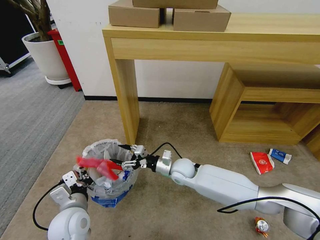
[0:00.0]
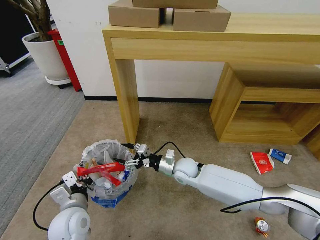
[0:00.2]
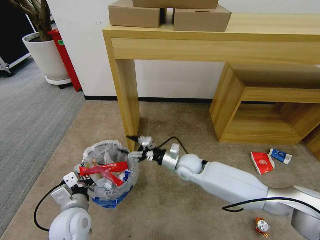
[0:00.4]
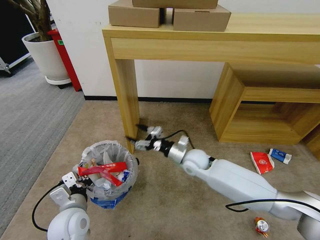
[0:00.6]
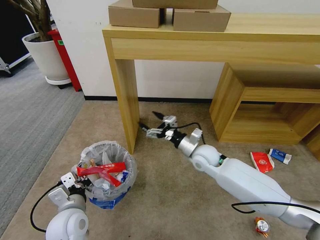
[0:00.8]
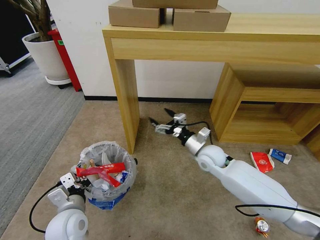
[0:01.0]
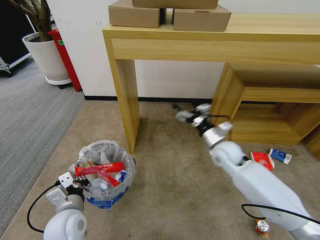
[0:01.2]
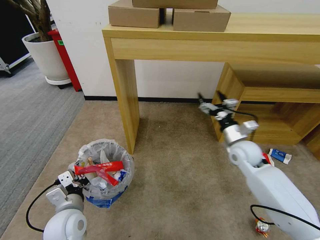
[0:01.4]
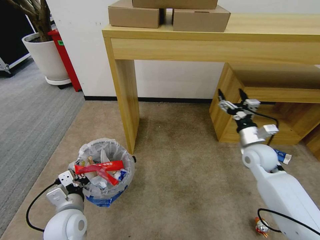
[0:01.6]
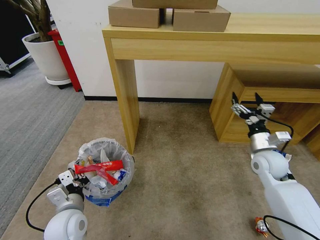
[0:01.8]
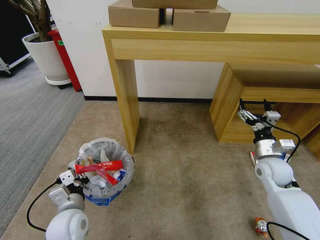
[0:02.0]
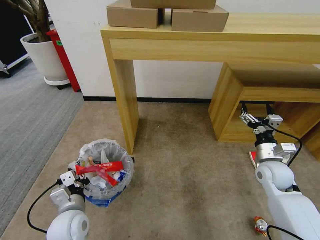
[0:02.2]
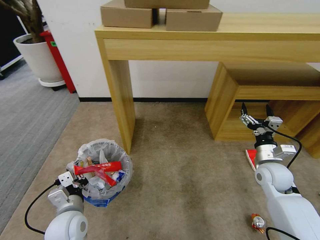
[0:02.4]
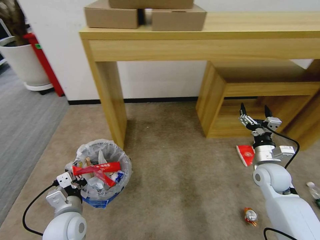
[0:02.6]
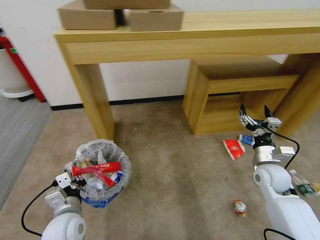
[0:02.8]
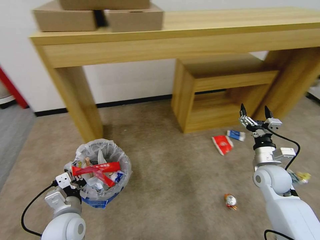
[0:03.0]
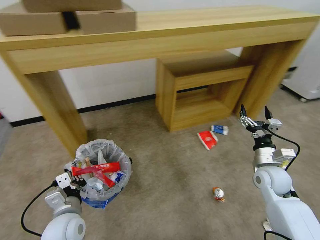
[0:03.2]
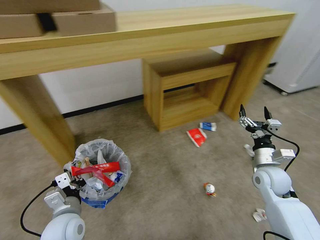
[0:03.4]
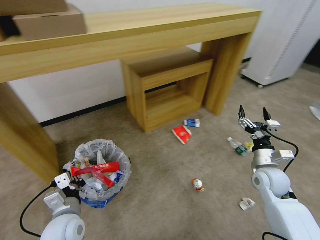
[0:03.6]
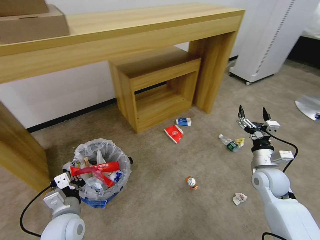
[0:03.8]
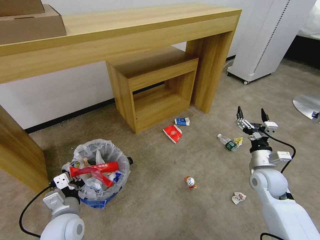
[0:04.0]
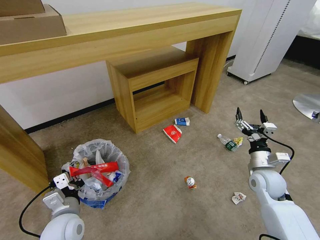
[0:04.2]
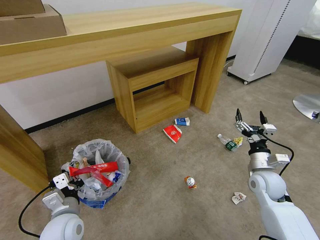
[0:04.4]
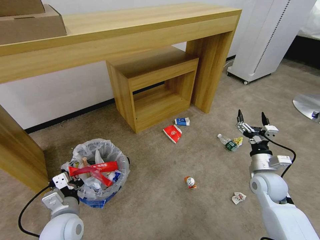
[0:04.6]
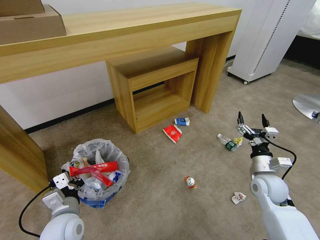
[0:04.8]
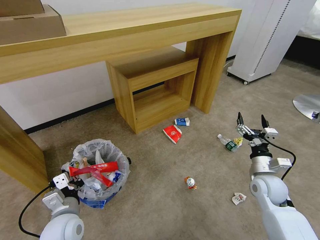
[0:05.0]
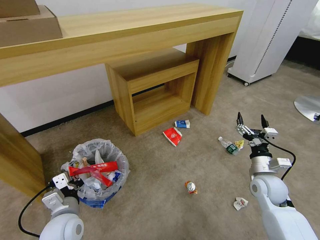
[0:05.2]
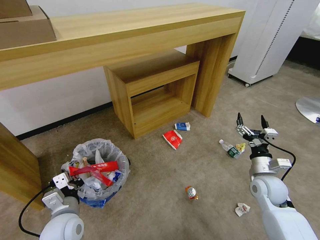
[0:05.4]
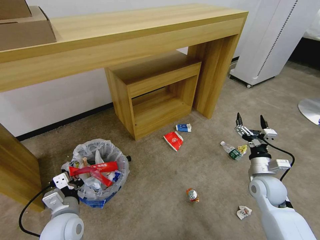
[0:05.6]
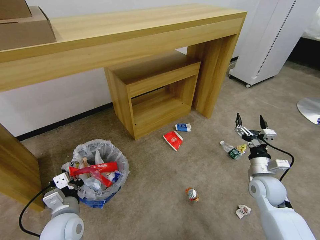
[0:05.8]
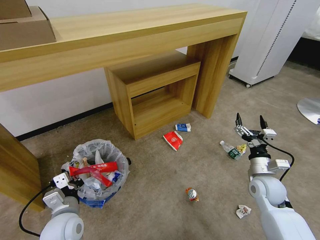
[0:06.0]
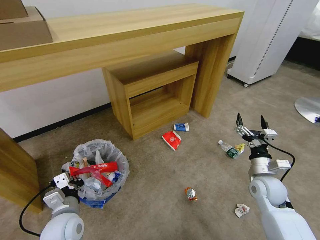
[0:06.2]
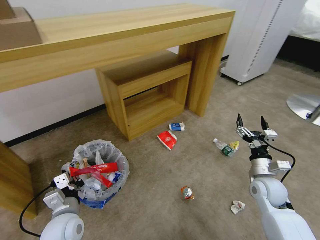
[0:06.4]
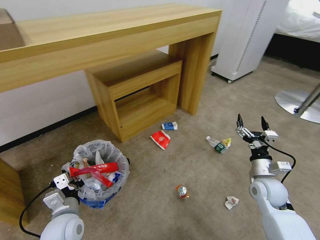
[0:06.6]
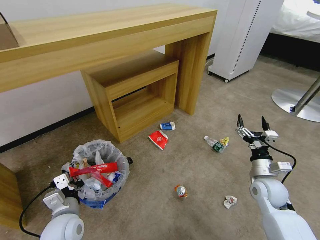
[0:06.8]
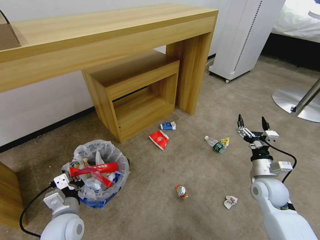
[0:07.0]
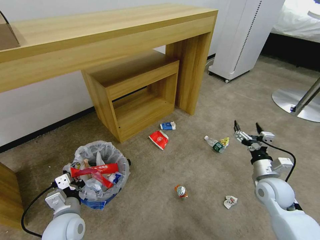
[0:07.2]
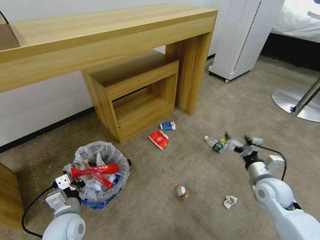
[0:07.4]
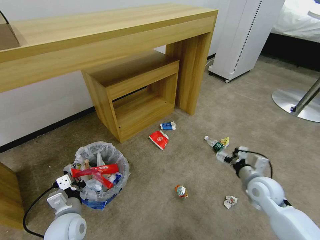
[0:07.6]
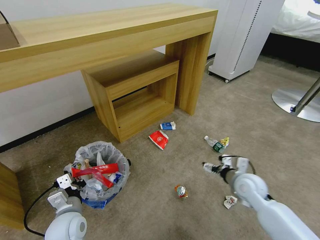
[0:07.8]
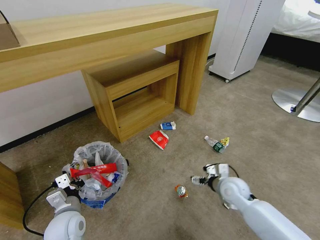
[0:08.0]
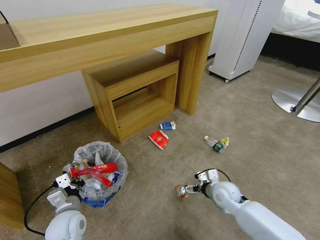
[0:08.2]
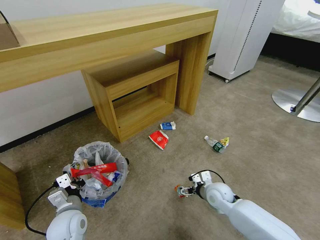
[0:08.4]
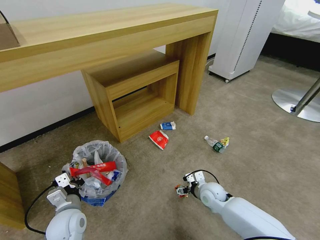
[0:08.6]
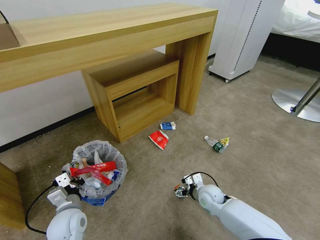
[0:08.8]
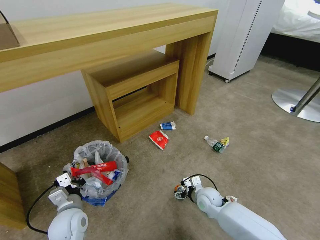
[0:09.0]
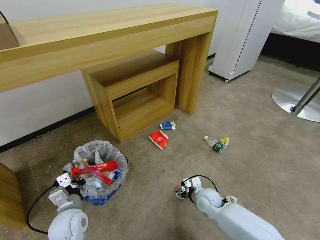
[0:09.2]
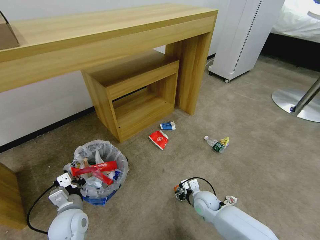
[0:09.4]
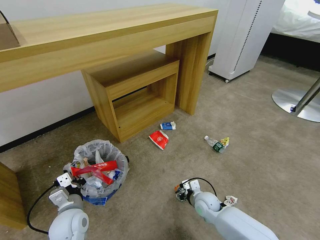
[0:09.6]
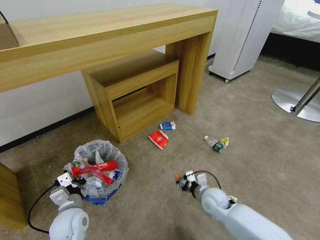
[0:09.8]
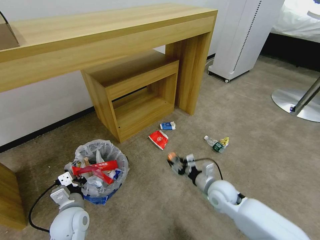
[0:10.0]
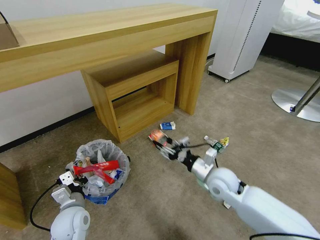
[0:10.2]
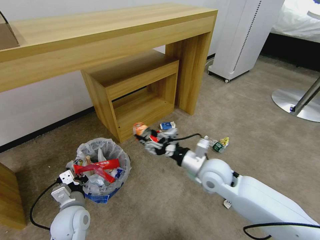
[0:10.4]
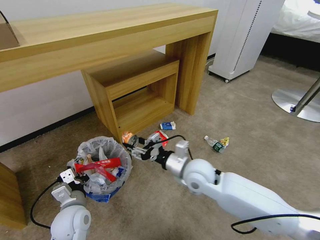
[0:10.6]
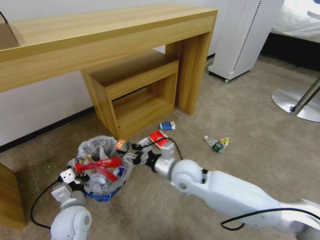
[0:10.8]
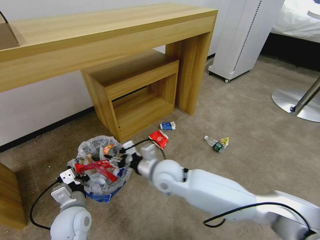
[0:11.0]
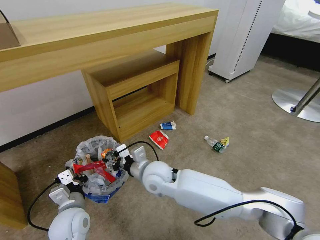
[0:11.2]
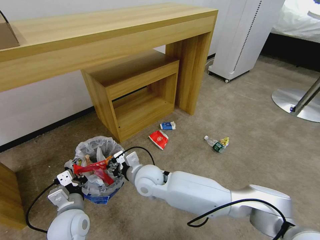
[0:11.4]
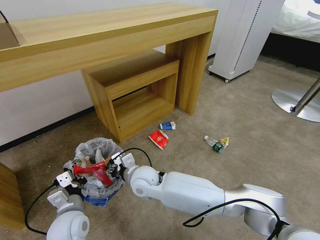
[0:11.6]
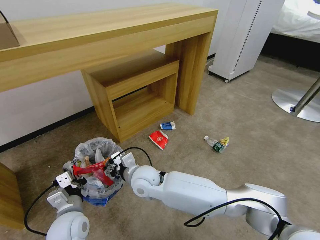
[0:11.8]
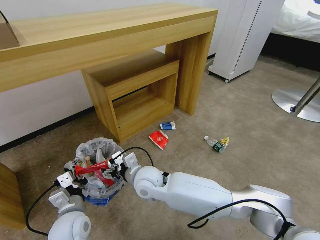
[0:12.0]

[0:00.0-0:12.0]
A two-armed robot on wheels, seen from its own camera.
Task of the whole recording: Pick up the trash bin and place the garbage on the floor into it.
0:00.0 to 0:01.6: The right gripper goes roughly 25 cm to the right and upward.
0:01.6 to 0:03.0: The right gripper is displaced backward by approximately 5 cm.
0:04.4 to 0:06.0: The grippers make only small movements.
0:07.6 to 0:09.0: The right gripper travels to the left and downward by approximately 20 cm.
0:09.0 to 0:10.4: The right gripper moves upward, roughly 20 cm, and closes up.
0:10.4 to 0:12.0: The right gripper moves to the left, roughly 20 cm.

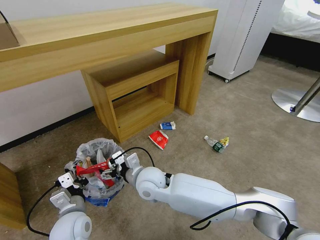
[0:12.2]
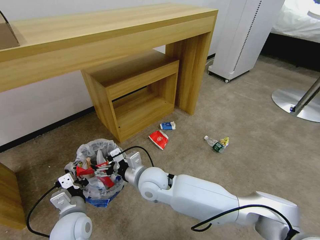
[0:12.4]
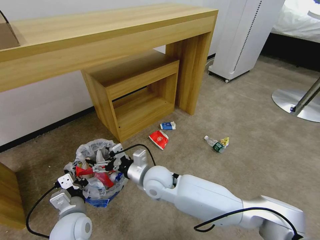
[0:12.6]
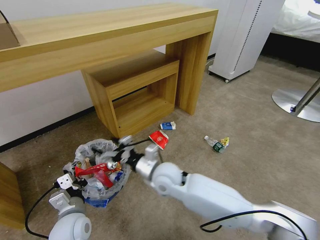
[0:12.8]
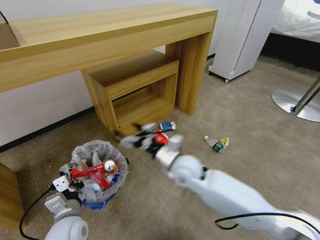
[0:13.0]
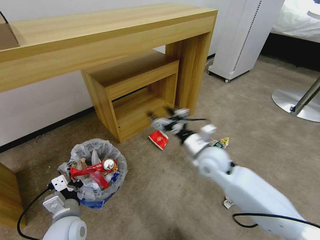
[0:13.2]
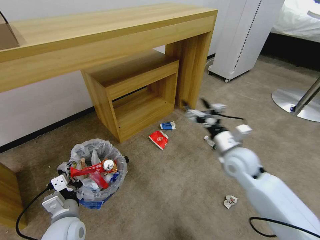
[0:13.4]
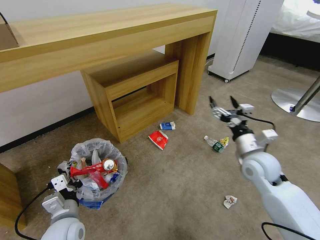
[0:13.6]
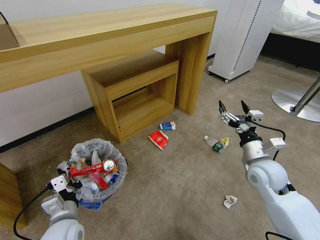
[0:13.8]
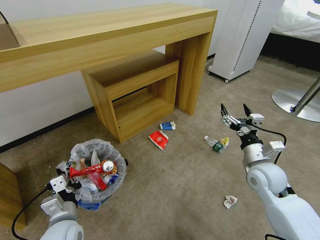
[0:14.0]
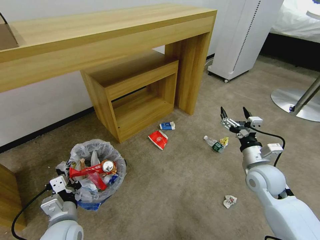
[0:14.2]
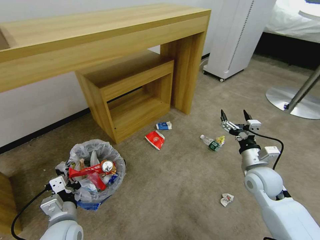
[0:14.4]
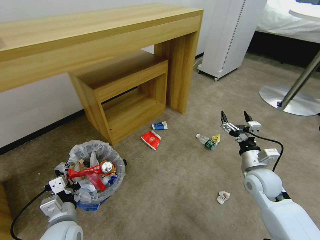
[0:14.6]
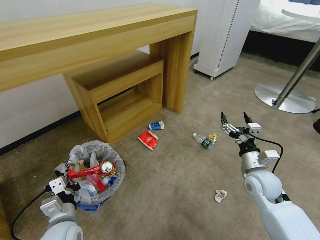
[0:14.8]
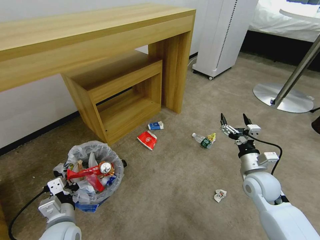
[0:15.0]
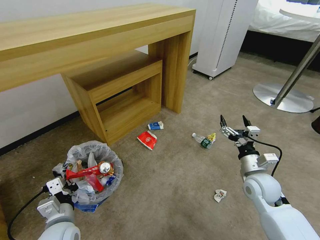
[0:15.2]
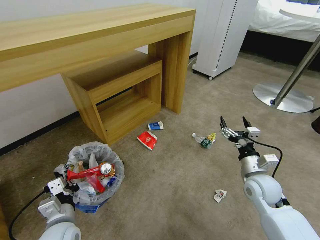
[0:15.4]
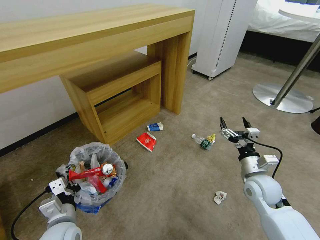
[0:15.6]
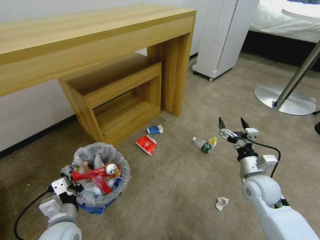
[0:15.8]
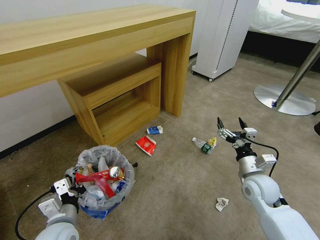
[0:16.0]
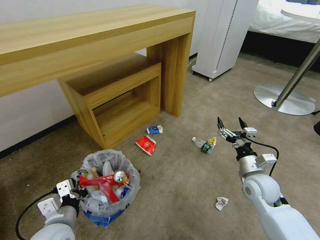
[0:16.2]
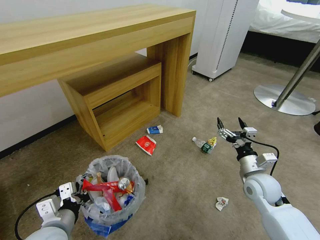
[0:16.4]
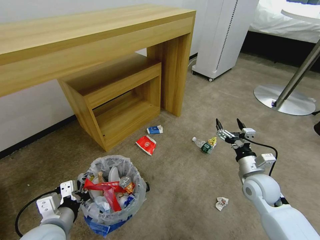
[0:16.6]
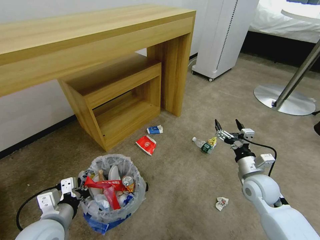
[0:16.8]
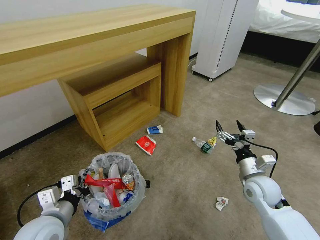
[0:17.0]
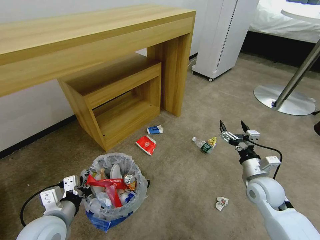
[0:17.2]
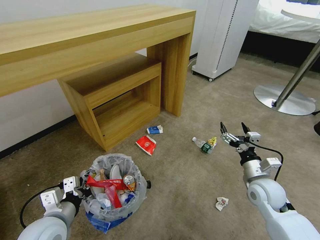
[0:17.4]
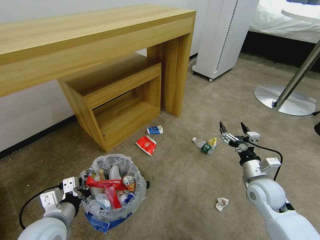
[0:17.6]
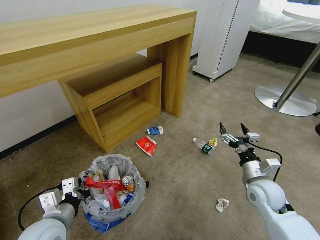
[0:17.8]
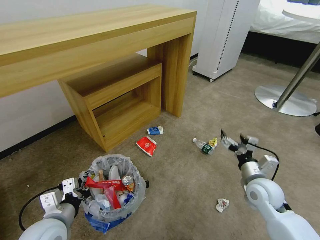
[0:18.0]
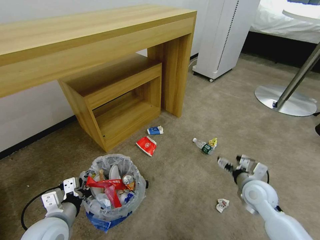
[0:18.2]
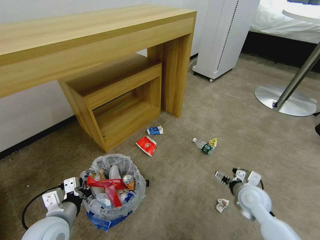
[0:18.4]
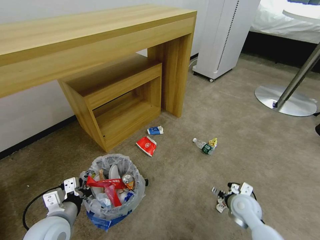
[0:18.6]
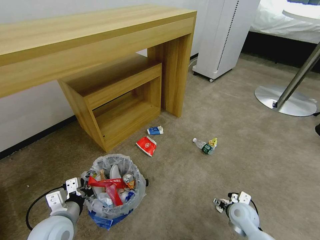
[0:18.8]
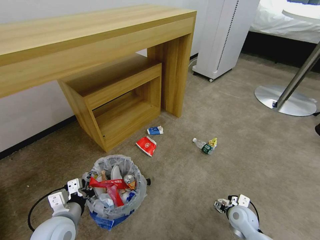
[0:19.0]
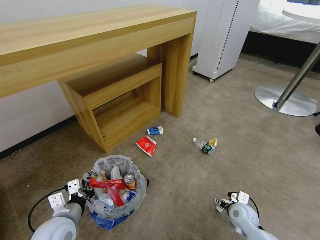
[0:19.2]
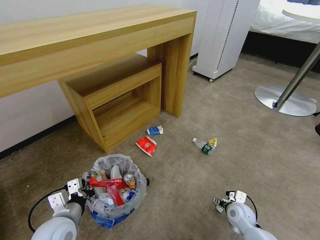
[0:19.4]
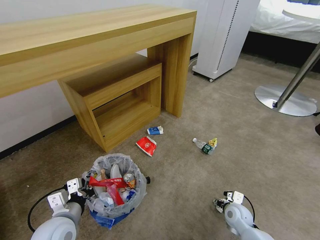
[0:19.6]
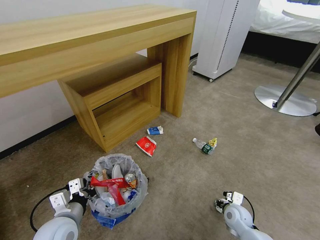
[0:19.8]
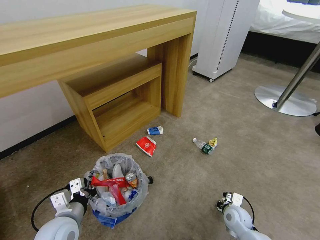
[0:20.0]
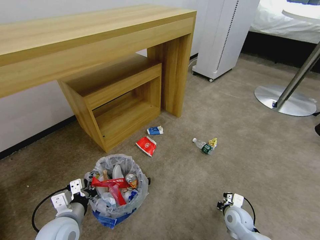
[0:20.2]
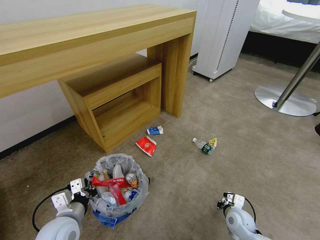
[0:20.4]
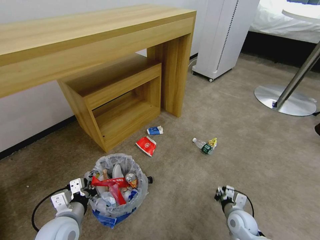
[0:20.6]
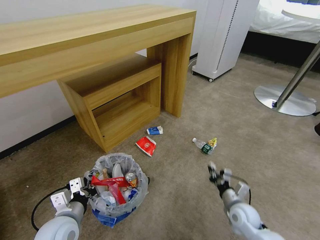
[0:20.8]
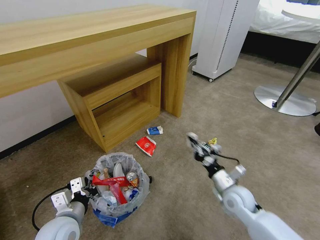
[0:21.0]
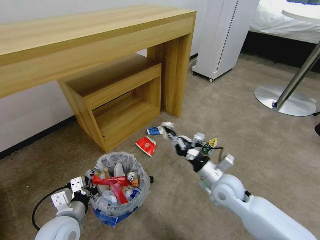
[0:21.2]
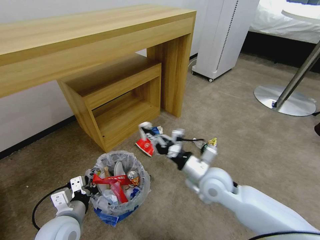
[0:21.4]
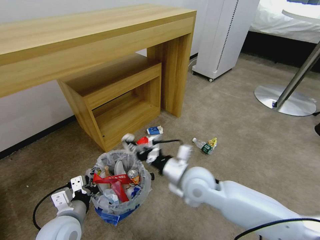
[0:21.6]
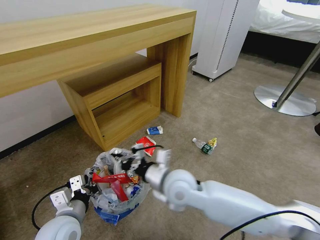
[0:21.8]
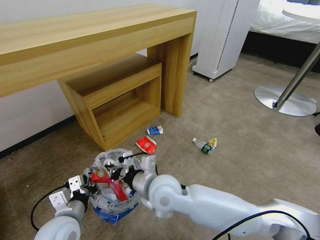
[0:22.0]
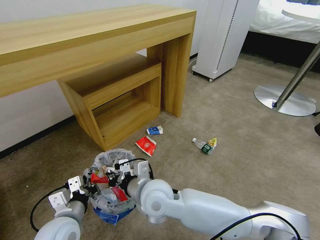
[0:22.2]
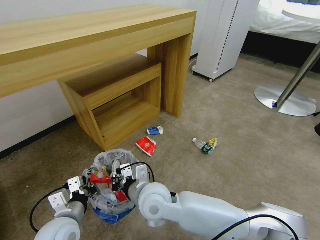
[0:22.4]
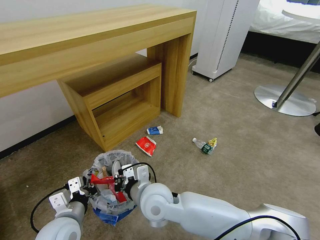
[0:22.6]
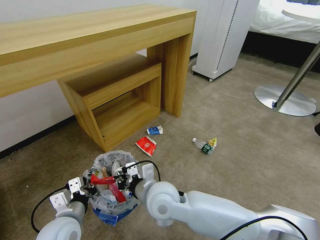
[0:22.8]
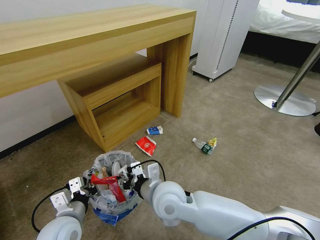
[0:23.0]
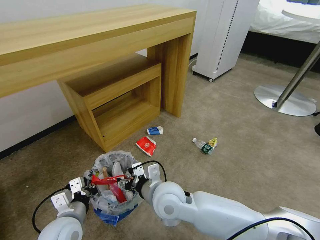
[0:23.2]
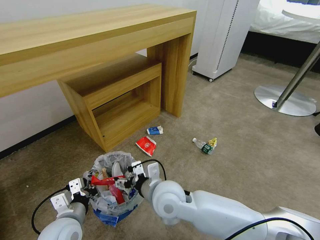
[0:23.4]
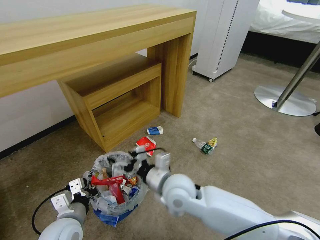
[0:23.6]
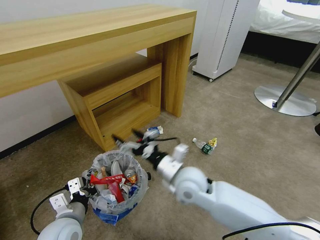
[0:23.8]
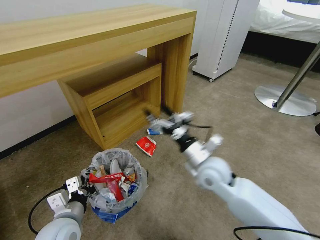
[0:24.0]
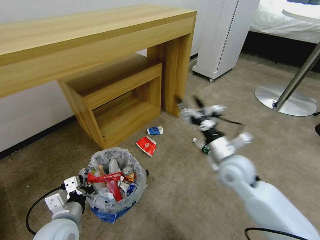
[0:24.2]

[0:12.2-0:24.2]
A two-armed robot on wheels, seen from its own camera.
Task of the whole recording: Pick up the trash bin and place the garbage on the floor into it.
0:12.2 to 0:13.8: The right gripper moves to the right, some 35 cm.
0:13.8 to 0:15.2: The right gripper moves downward, approximately 5 cm.
0:15.2 to 0:16.6: The left gripper goes roughly 5 cm upward.
0:18.2 to 0:19.8: The right gripper shifts roughly 15 cm downward, and closes its fingers.
0:19.8 to 0:21.2: The right gripper shifts about 20 cm upward and to the left, and closes.
0:21.2 to 0:22.6: The right gripper travels to the left by roughly 25 cm.
0:22.6 to 0:24.2: The right gripper moves to the right, roughly 25 cm, and opens its fingers.
